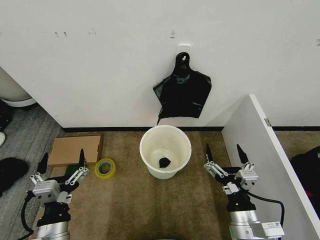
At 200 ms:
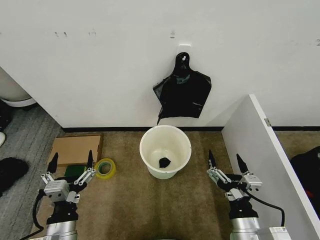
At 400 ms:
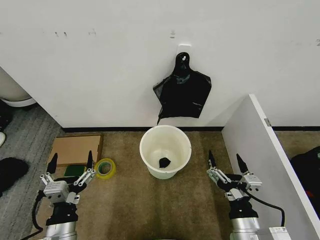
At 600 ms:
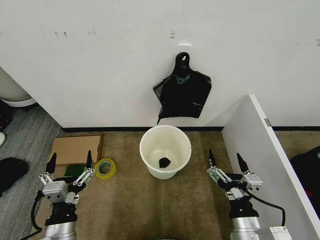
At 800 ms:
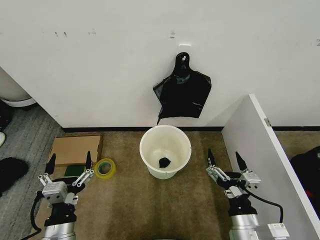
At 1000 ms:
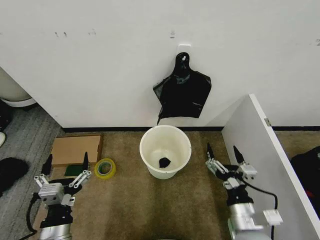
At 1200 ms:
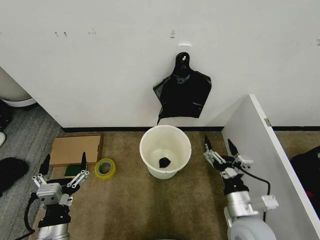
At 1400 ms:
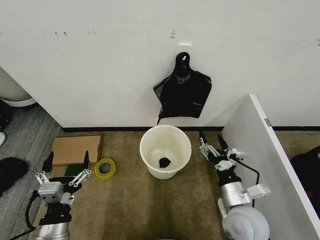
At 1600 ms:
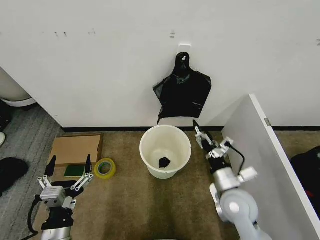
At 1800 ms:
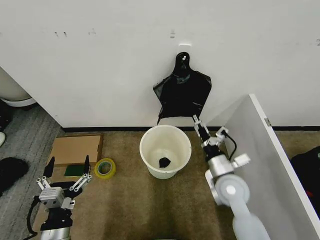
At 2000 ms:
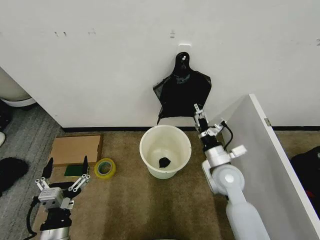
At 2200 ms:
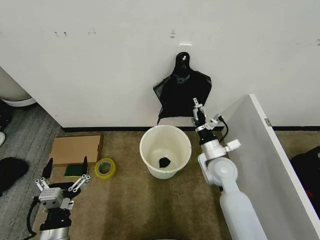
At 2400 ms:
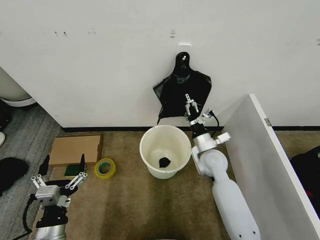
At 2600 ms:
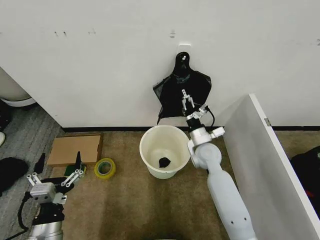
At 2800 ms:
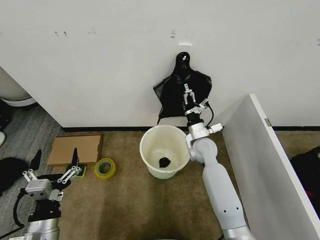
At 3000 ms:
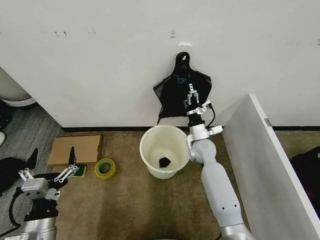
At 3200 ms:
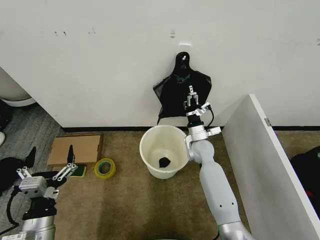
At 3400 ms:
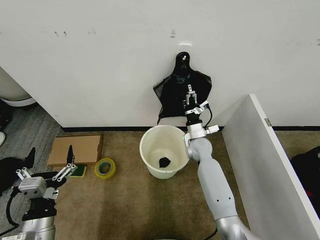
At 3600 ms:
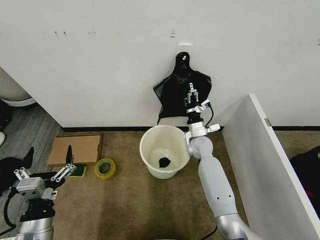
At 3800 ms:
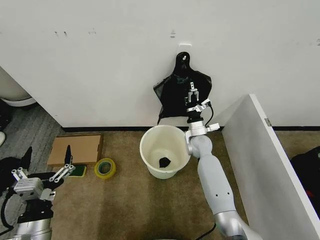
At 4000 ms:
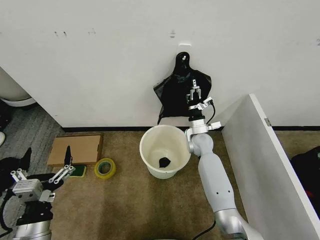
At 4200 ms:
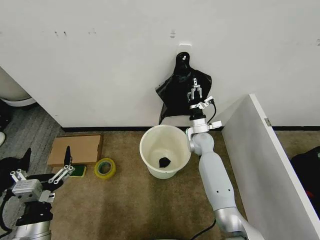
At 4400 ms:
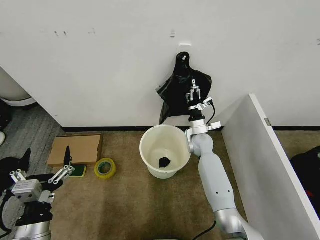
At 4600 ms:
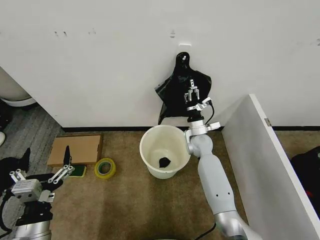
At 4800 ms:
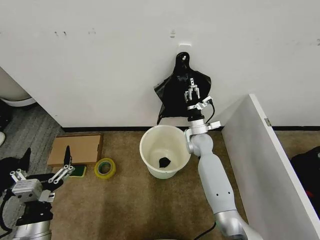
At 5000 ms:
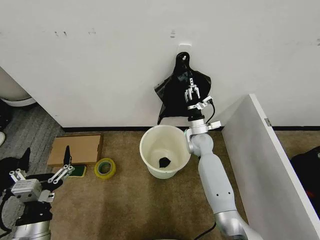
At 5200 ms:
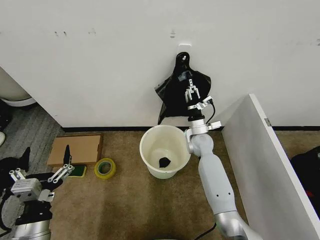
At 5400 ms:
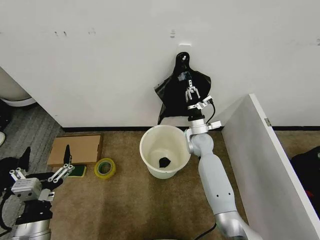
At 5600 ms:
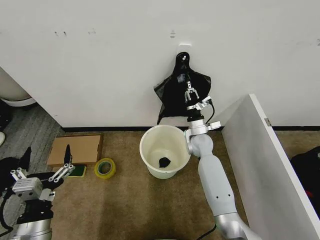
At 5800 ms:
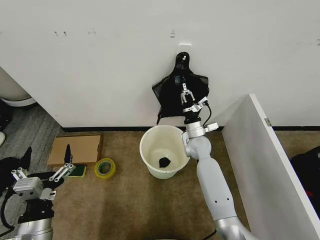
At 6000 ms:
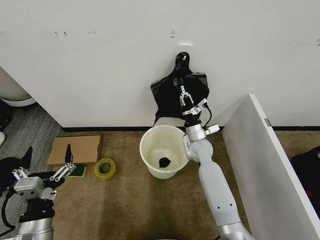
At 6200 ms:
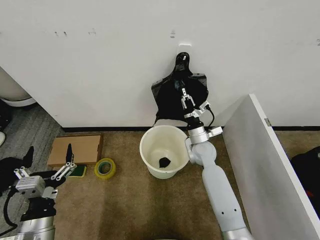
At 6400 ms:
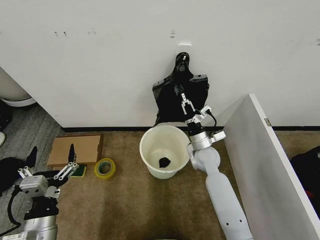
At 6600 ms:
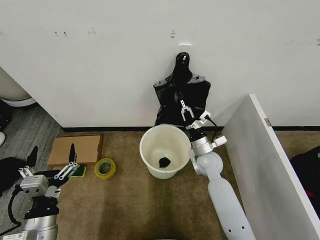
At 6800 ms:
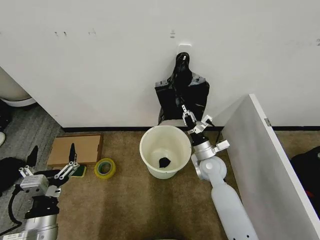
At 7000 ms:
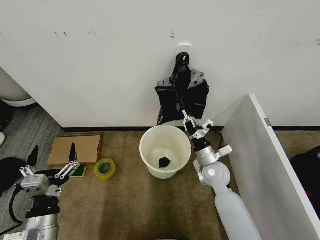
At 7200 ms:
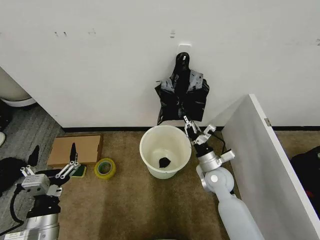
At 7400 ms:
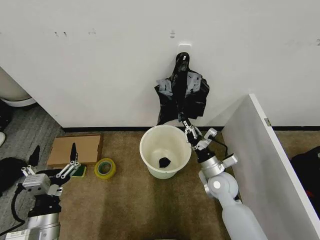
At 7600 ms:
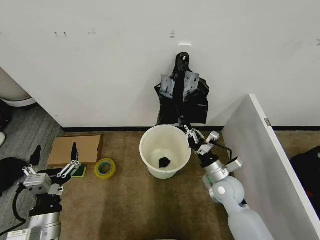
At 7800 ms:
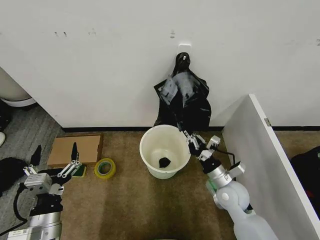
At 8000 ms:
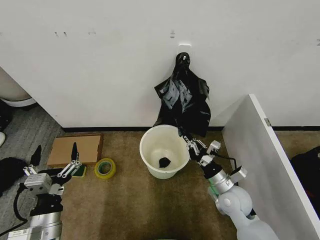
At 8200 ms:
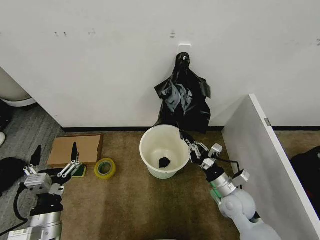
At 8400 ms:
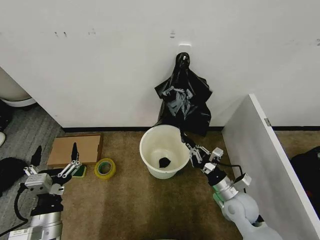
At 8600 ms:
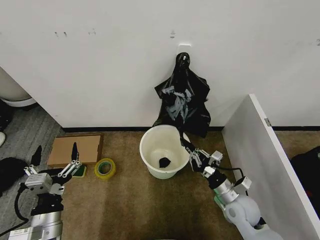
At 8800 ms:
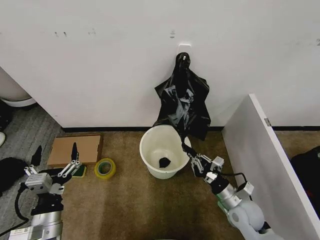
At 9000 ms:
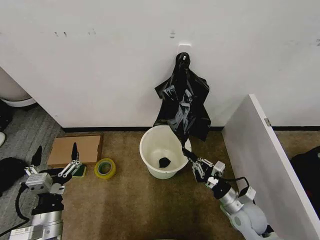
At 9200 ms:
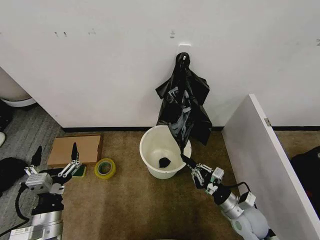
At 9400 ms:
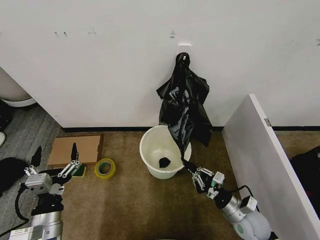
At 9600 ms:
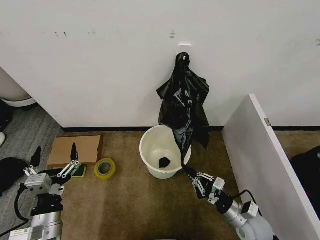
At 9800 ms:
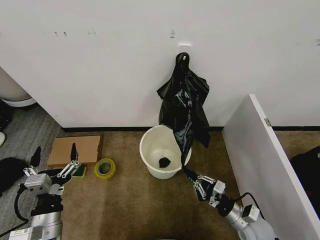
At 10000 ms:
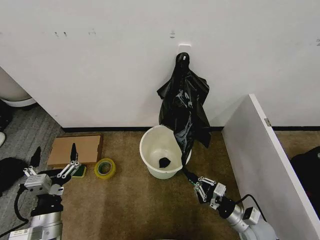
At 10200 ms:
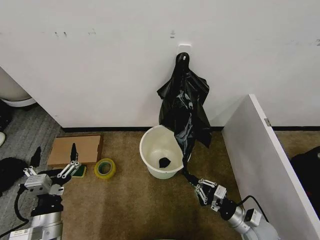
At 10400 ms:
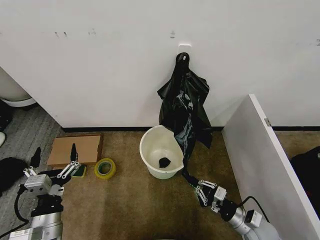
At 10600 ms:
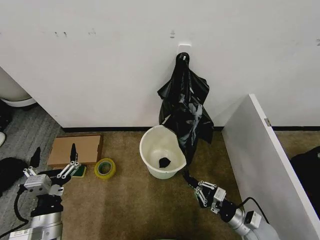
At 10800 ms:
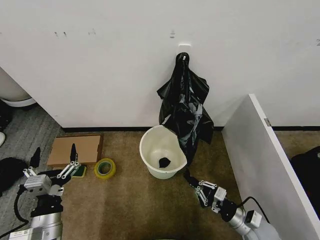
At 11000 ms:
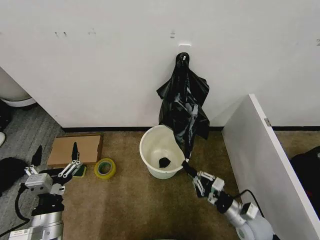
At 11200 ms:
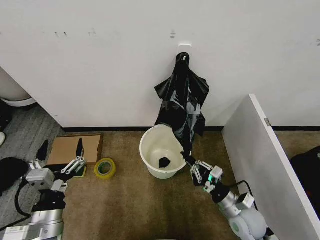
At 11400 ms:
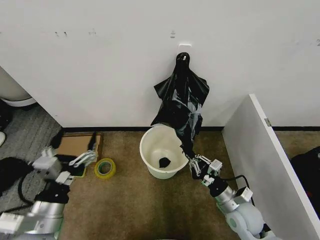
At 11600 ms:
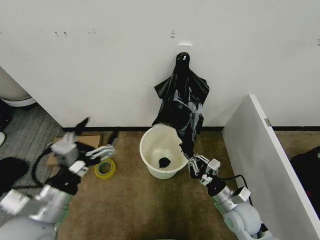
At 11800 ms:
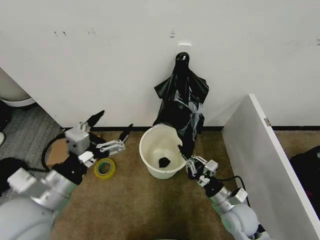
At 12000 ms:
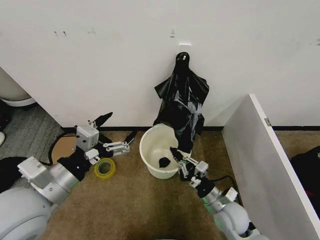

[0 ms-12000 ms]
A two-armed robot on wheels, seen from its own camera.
Task of the whole recording: Place the garbage bag over the trash bin.
1600 ms to 3000 ms: The right gripper is displaced forward by approximately 20 cm.
3000 ms to 4400 ms: The grippers make only small movements.
4400 ms to 6000 ms: The right gripper closes up.
6000 ms to 7600 ms: The right gripper heads backward and to the right, covering approximately 15 cm.
7600 ms to 9000 ms: The right gripper is displaced backward, to the right and downward by roughly 10 cm.
9000 ms to 10400 ms: The right gripper changes place by some 5 cm.
10400 ms to 12000 ms: The left gripper moves upward, some 15 cm, while the right gripper heads to the left, covering about 10 cm.

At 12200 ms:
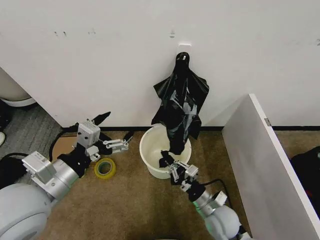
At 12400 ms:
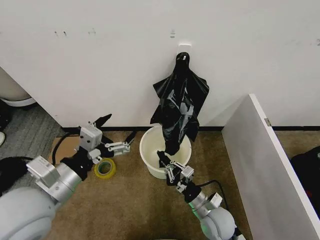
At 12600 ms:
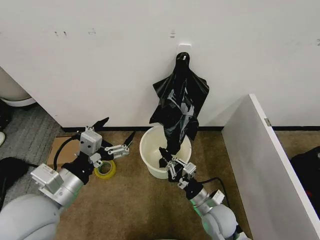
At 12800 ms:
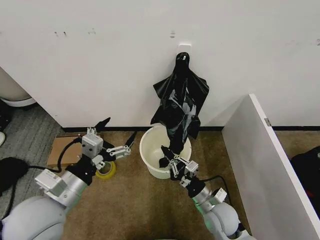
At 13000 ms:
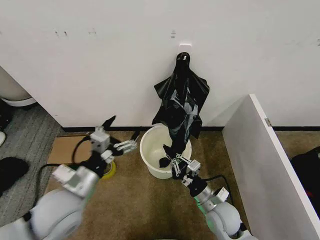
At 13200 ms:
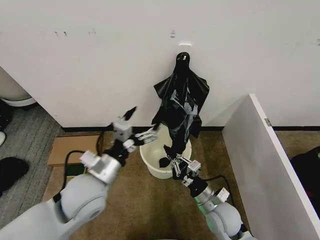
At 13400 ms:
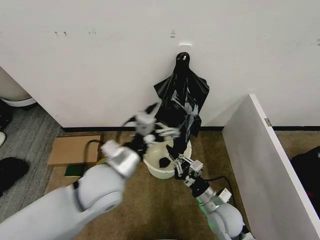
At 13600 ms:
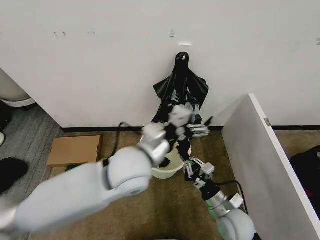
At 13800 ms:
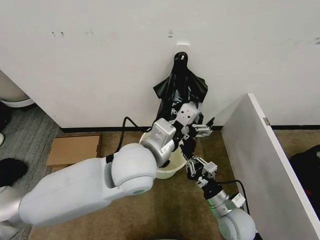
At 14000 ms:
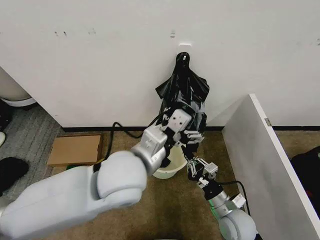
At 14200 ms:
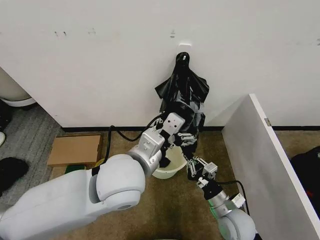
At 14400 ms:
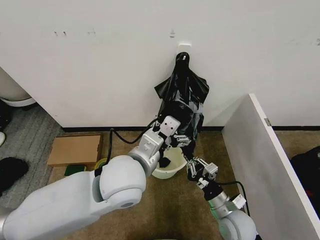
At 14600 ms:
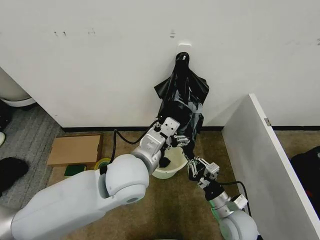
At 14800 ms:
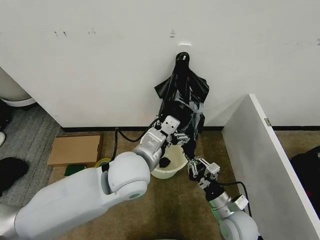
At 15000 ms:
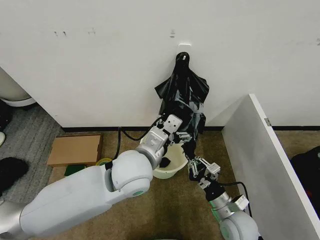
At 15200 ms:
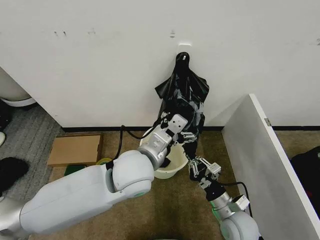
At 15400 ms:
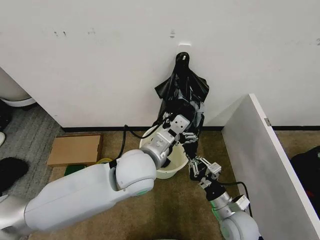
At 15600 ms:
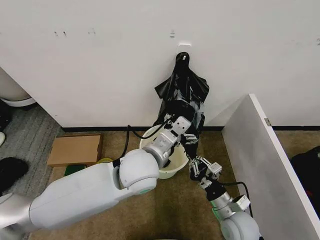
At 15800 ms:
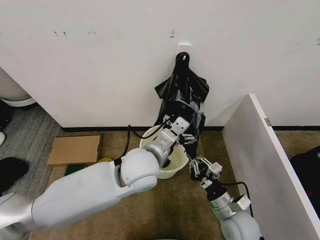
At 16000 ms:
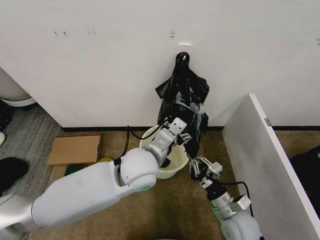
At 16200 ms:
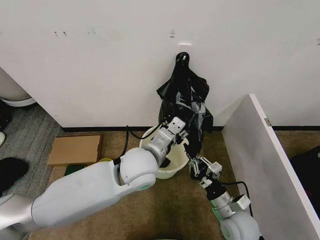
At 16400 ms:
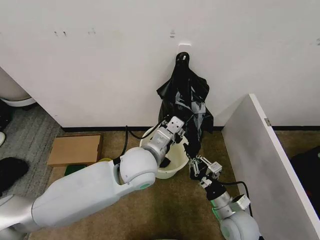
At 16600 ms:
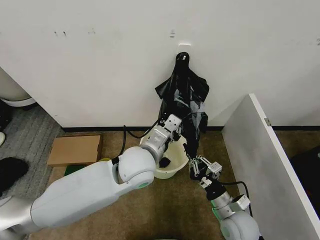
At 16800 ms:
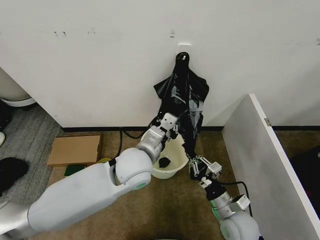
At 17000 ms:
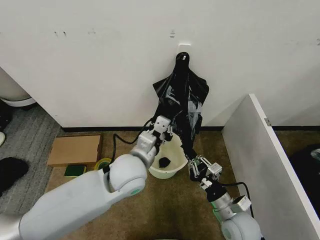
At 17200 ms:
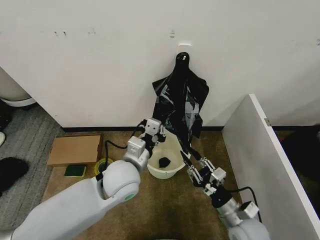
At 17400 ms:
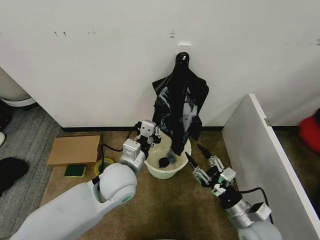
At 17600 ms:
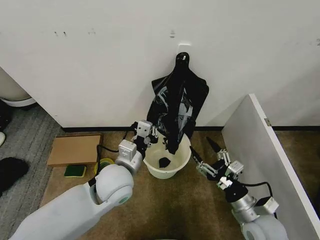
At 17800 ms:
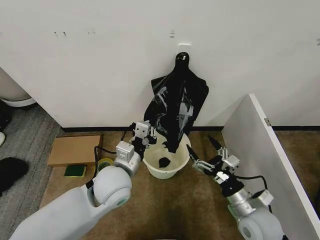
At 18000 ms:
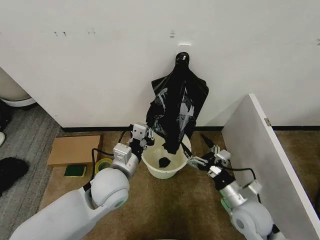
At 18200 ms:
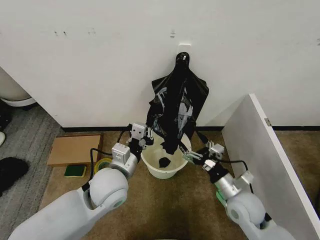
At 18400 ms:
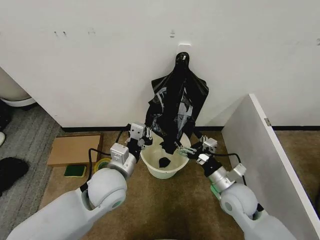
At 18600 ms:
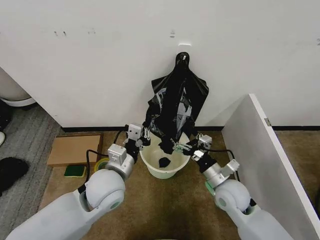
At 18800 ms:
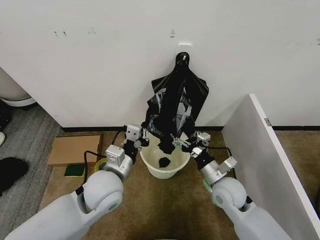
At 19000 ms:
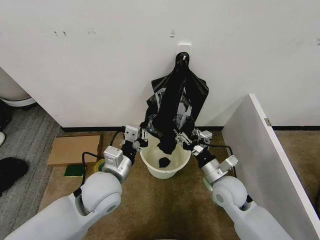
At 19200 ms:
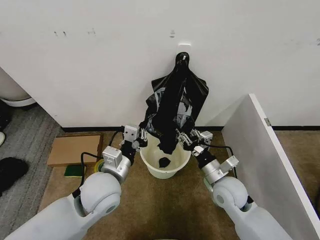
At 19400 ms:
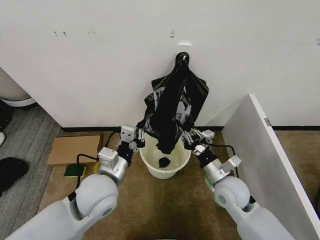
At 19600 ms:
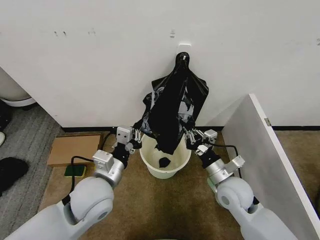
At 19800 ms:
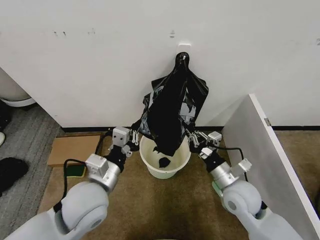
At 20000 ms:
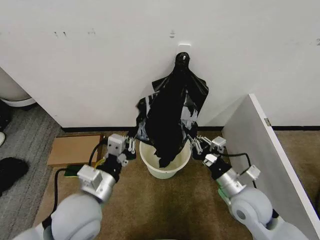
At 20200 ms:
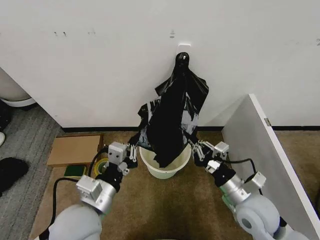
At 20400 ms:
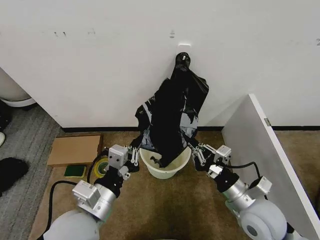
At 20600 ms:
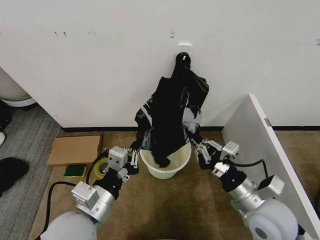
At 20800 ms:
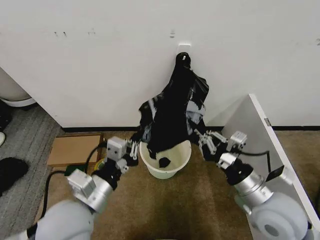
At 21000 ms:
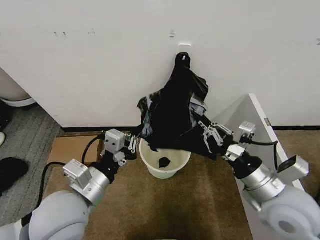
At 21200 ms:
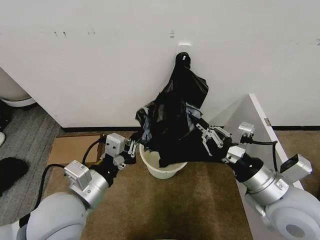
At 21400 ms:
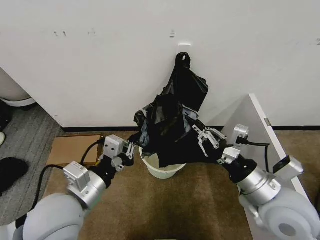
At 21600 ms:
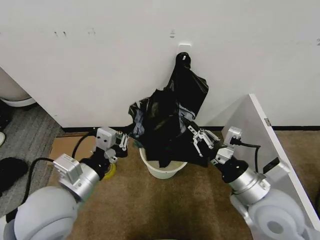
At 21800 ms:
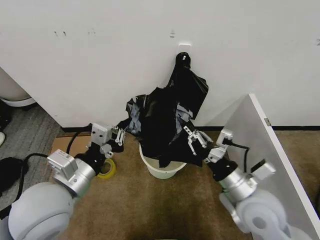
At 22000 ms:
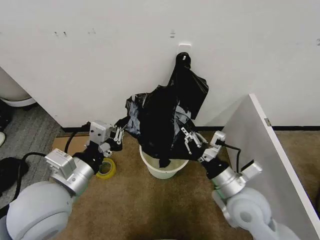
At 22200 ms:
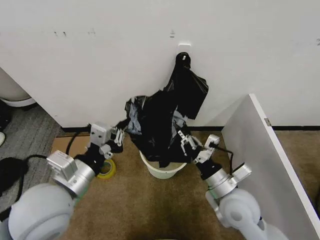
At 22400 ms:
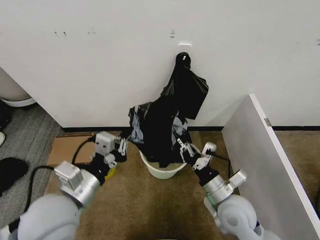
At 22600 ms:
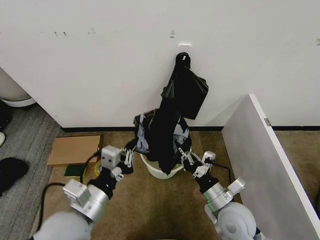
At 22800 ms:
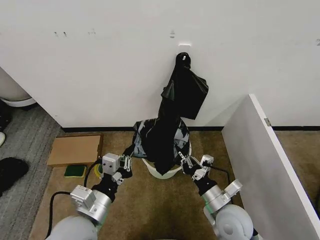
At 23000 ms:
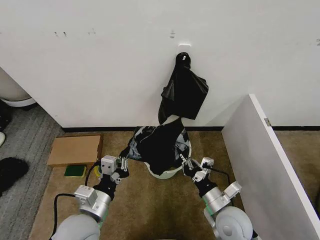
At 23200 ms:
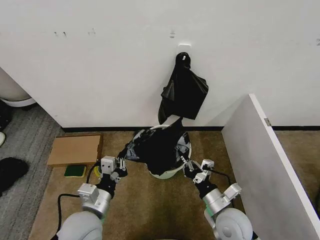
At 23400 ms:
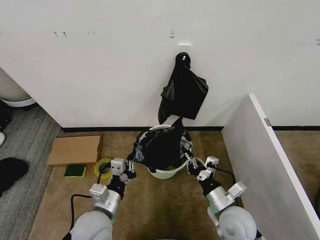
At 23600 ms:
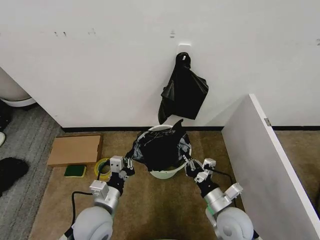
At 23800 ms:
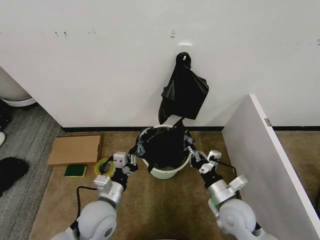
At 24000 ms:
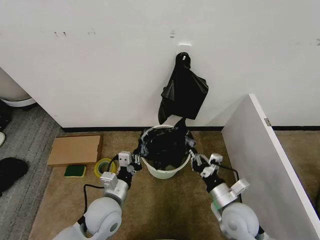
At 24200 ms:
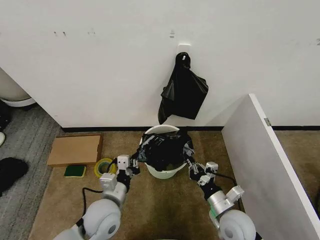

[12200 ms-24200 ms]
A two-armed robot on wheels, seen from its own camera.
Task of the whole recording: Place the garbage bag over the trash bin.
12200 ms to 13800 ms: The left gripper shifts roughly 20 cm to the right and forward.
13800 ms to 15200 ms: The grippers move only a little.
15200 ms to 16600 ms: The left gripper closes its fingers.
16600 ms to 18200 ms: The left gripper travels to the left by some 5 cm. Meanwhile the right gripper changes place by some 5 cm, and opens its fingers.
18200 ms to 19800 ms: The left gripper moves some 5 cm. The right gripper closes.
19800 ms to 21200 ms: The right gripper travels upward and backward by some 15 cm. Meanwhile the left gripper shifts by approximately 5 cm.
21200 ms to 22600 ms: The right gripper moves downward, about 15 cm.
22600 ms to 24200 ms: The left gripper shifts roughly 15 cm downward and forward. The right gripper travels downward by about 5 cm.
